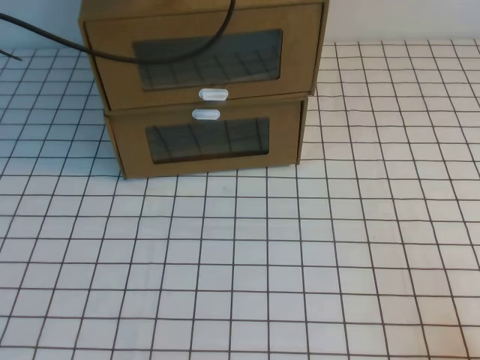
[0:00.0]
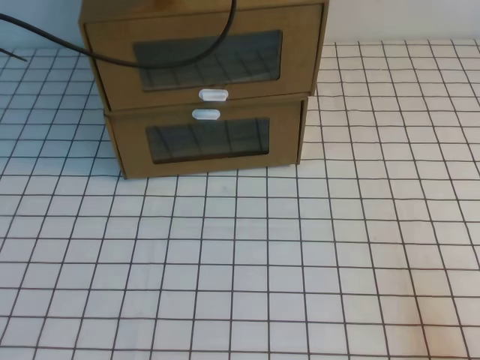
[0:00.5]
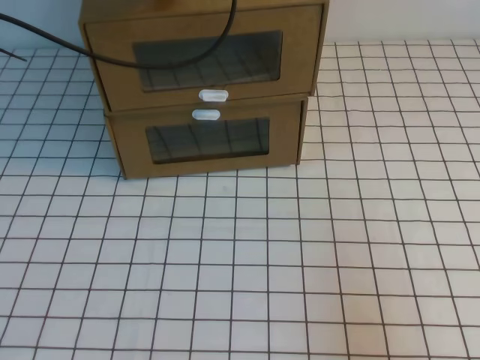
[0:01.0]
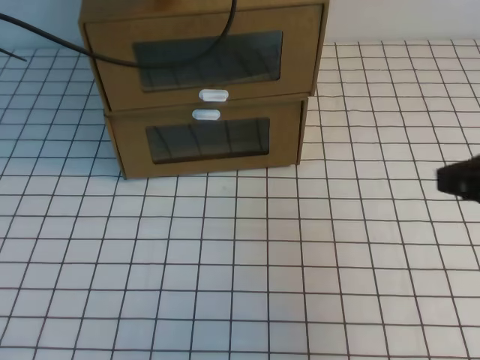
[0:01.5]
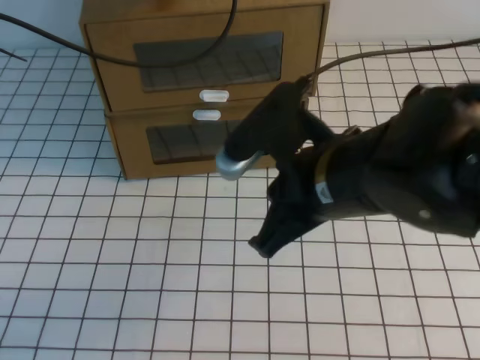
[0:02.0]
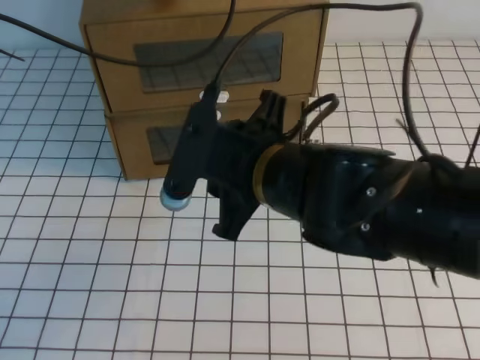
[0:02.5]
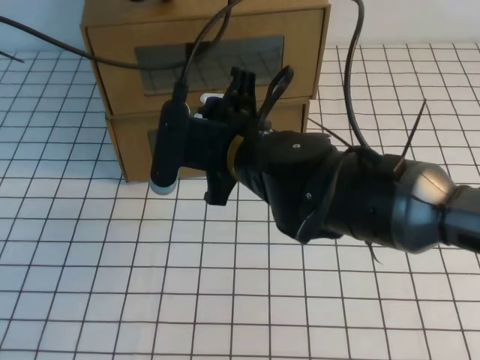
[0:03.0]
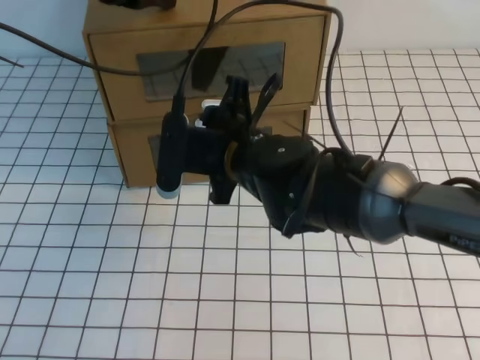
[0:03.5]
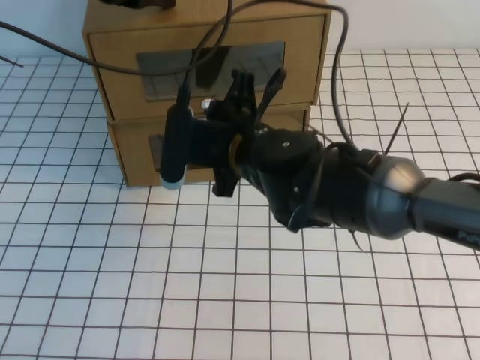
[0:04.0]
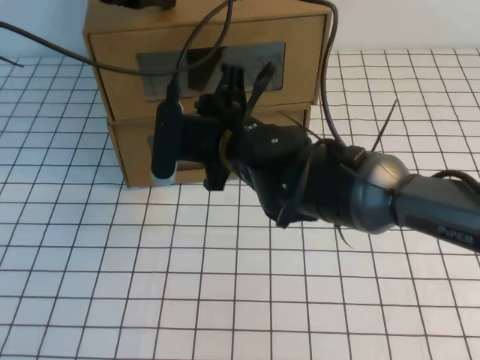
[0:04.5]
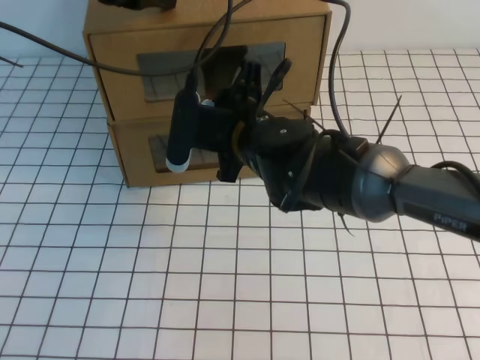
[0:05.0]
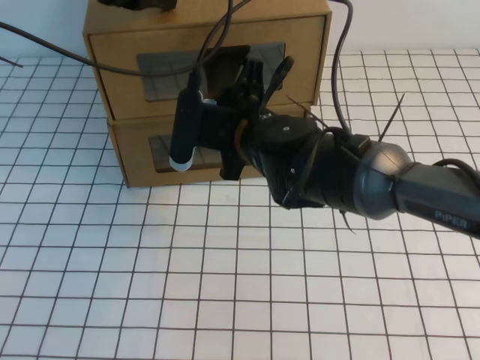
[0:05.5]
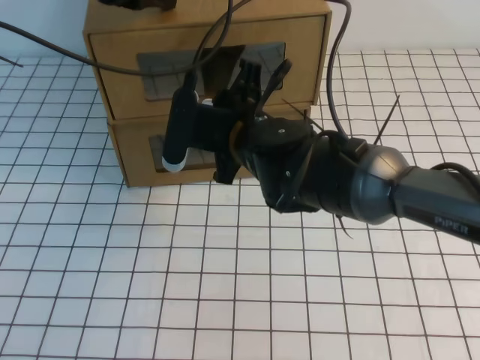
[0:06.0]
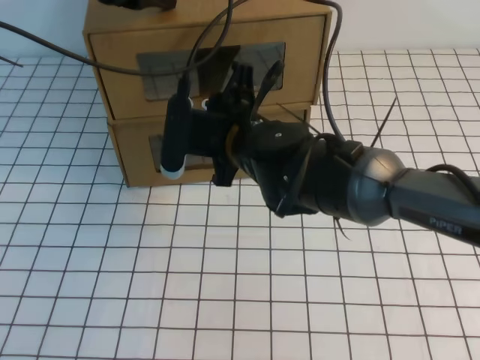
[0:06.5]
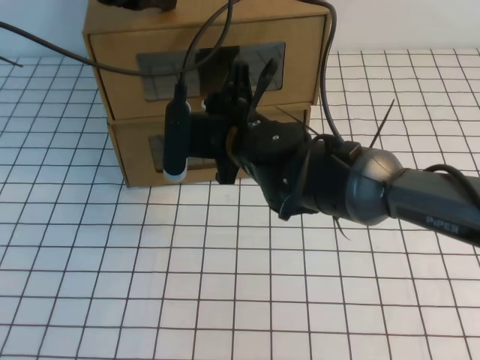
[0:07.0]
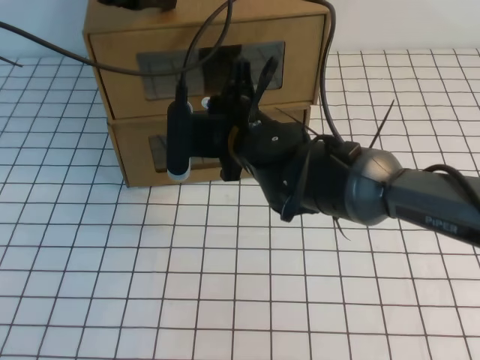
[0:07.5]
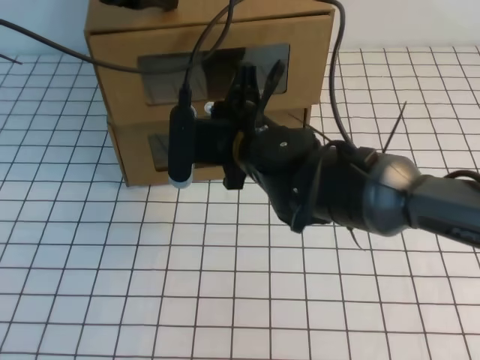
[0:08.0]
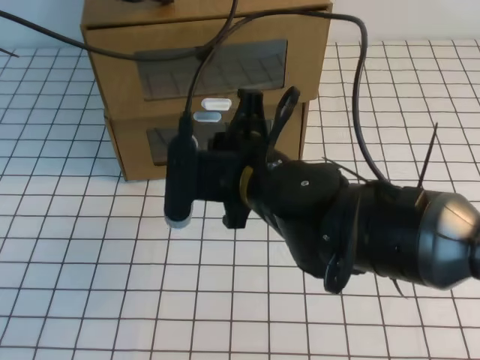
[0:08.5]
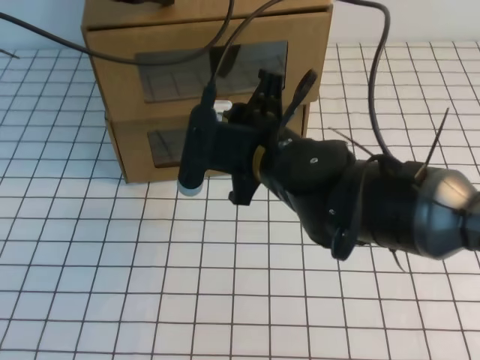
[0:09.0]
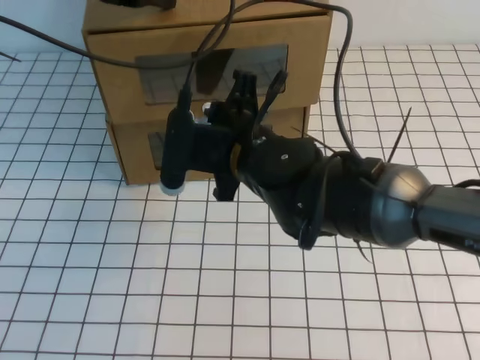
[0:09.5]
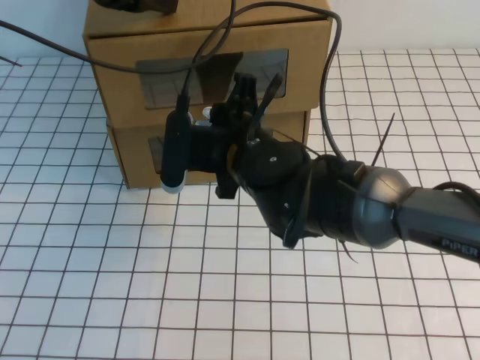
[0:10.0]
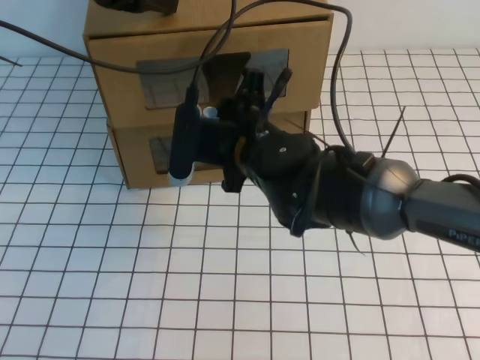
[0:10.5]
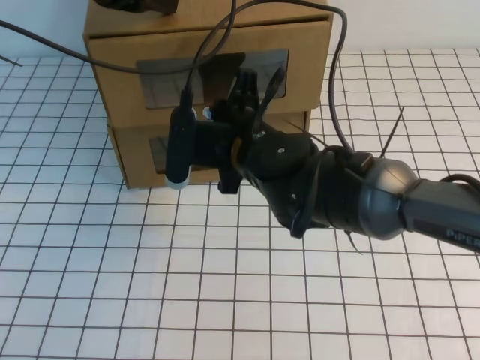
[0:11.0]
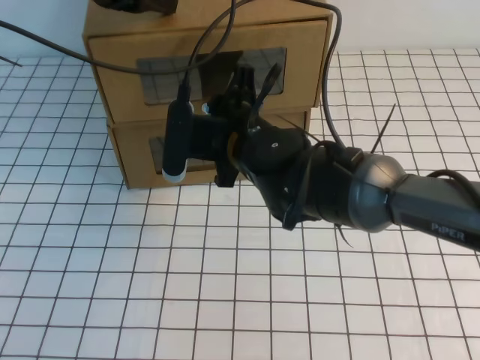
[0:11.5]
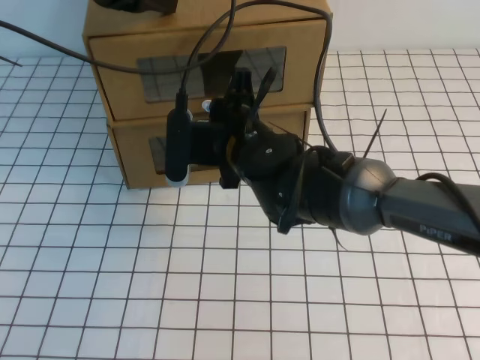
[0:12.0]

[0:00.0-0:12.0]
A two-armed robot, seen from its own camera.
Task of the whole recording: open the shoebox on the white tablecloth.
0:00.0 to 0:02.0: The right gripper moves to the left, forward and upward, approximately 30 cm.
0:02.0 to 0:04.0: The right gripper shifts some 15 cm forward, to the left and downward, and opens.
0:04.0 to 0:06.0: There are only small adjustments of the grippers.
0:06.0 to 0:08.0: The right gripper closes up.
0:08.0 to 0:10.0: The right gripper opens up.
0:10.0 to 0:12.0: The grippers make only small movements.

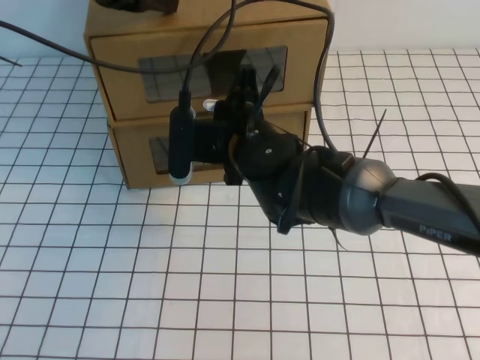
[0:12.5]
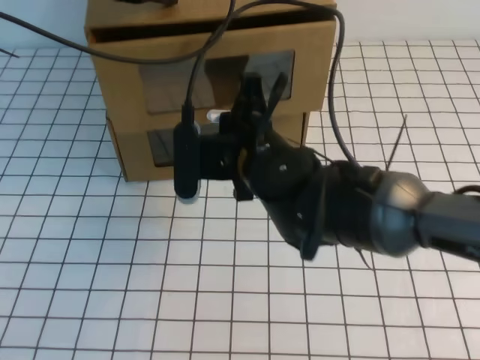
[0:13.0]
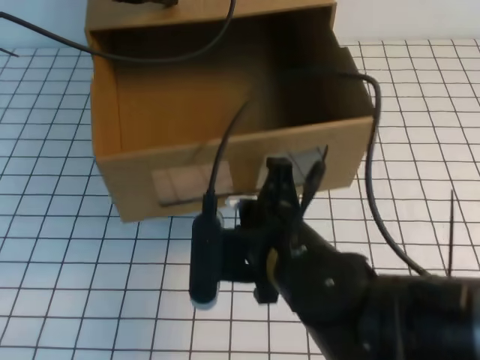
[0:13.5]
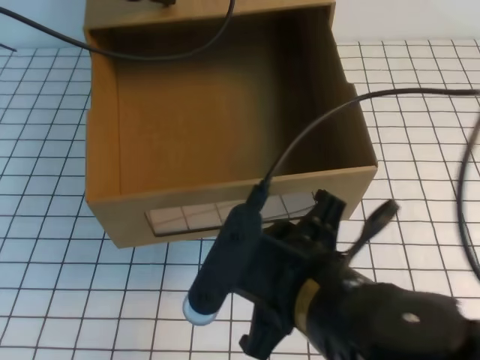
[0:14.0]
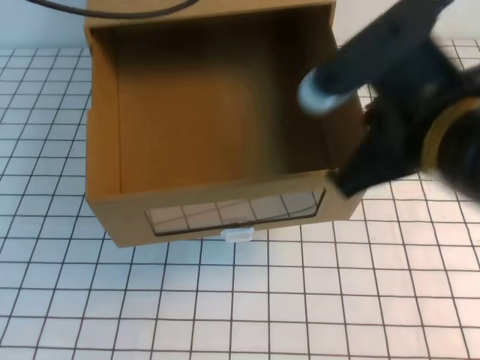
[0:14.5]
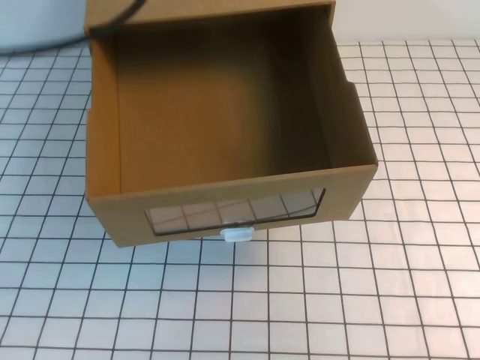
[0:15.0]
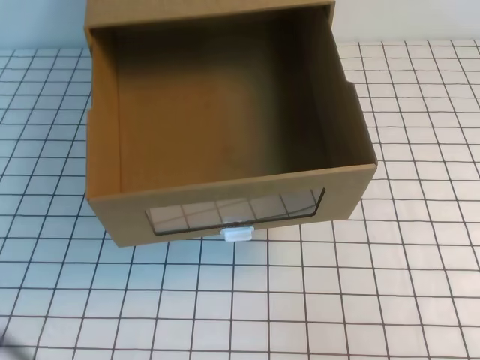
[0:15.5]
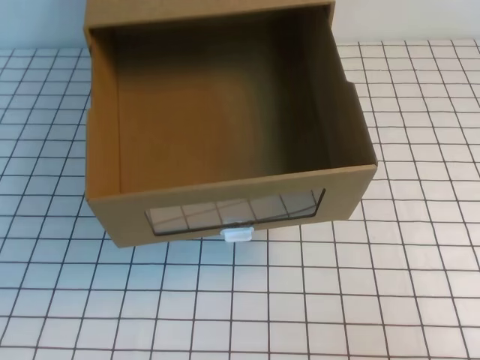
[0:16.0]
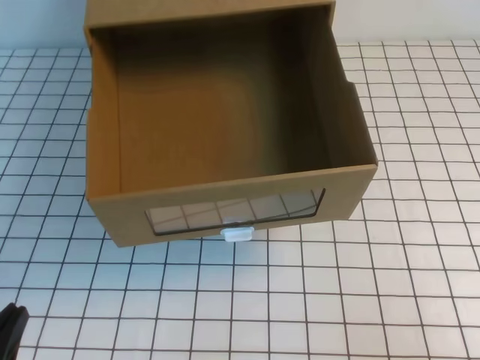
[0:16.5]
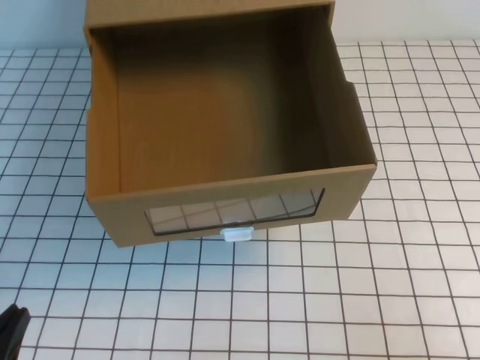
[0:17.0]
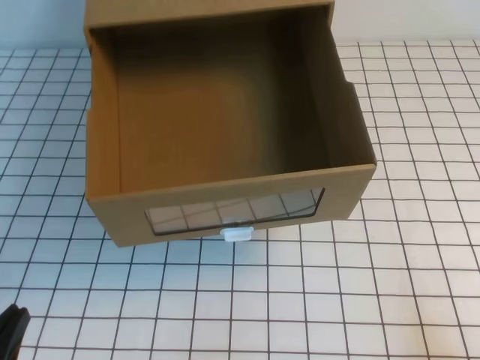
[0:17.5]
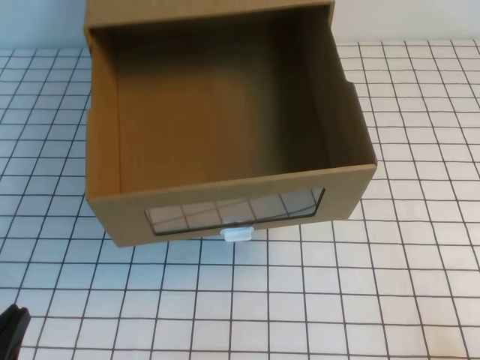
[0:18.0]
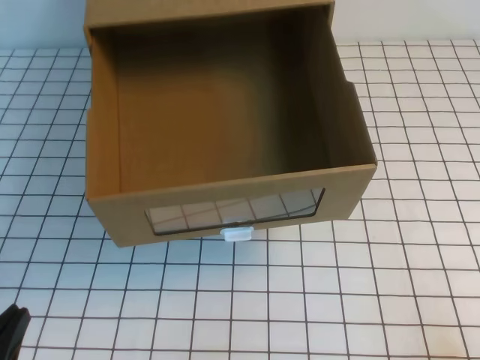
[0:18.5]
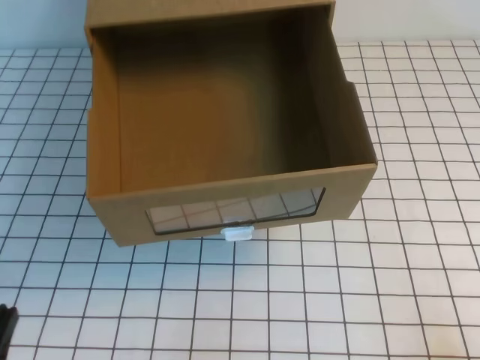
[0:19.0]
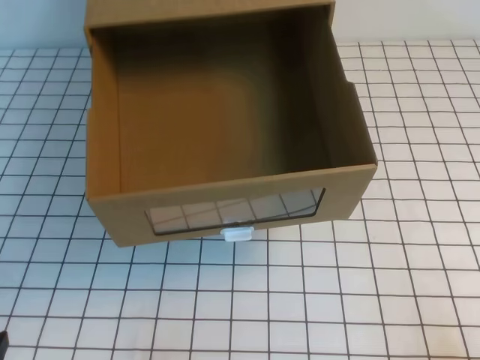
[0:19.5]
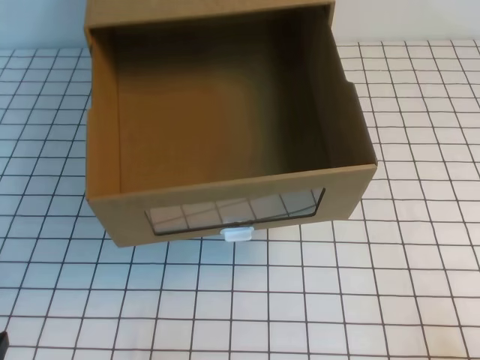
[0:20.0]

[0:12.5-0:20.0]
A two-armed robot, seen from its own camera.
Task of the whole recording: open the shoebox on the white tablecloth.
Step, 0:12.5 to 0:20.0: Open the shoe box.
0:12.5 to 0:14.5: The right gripper travels backward, to the right and upward by approximately 25 cm, and opens and closes again. Meanwhile the left gripper goes roughly 10 cm upward and backward.
0:14.5 to 0:16.5: The left gripper goes roughly 40 cm backward and downward, while the right gripper shifts roughly 25 cm to the right, backward and downward.

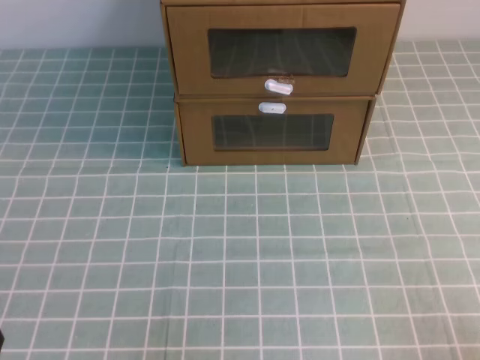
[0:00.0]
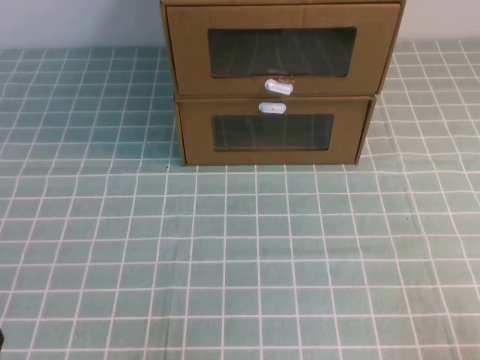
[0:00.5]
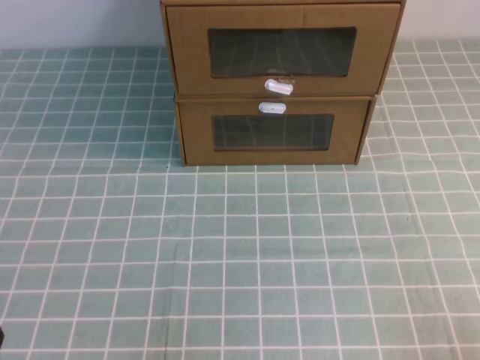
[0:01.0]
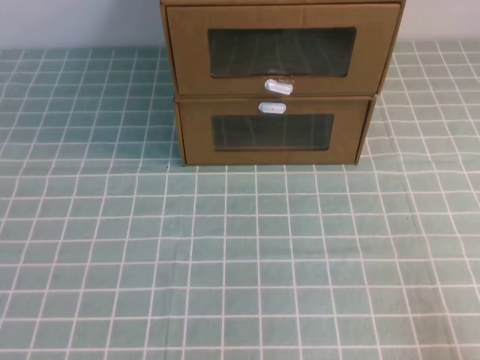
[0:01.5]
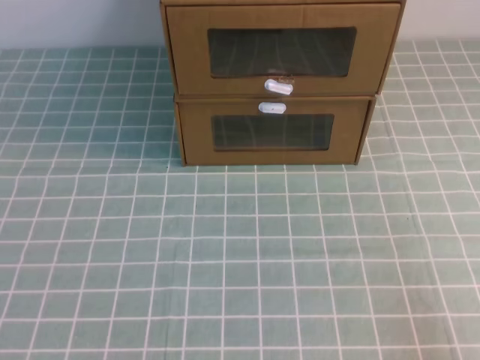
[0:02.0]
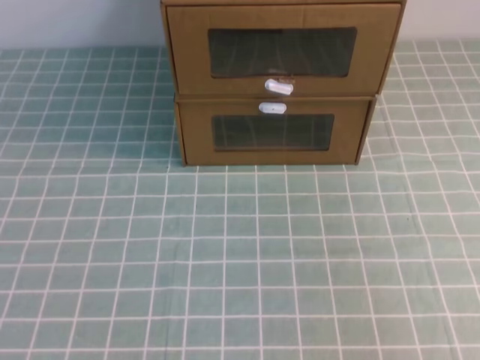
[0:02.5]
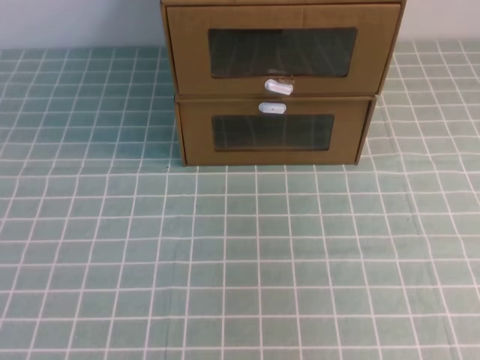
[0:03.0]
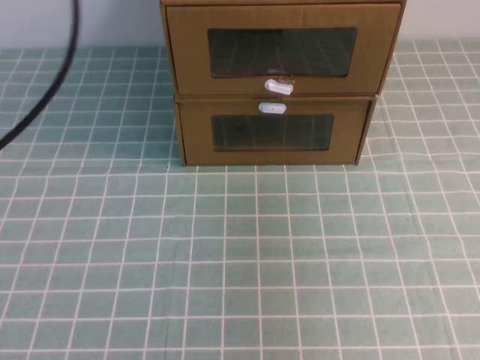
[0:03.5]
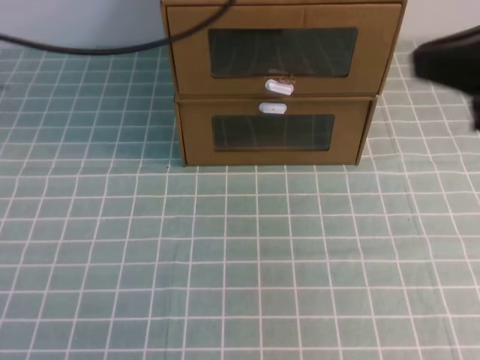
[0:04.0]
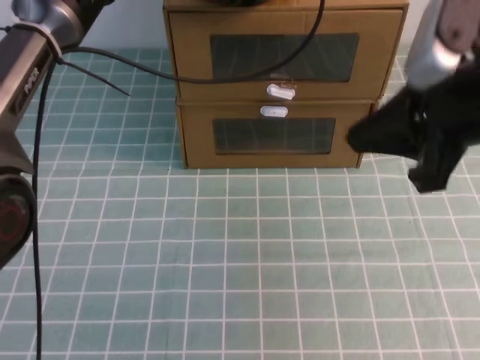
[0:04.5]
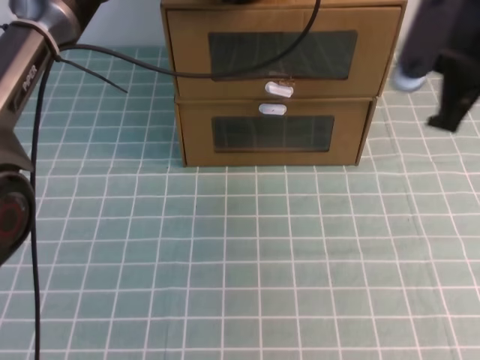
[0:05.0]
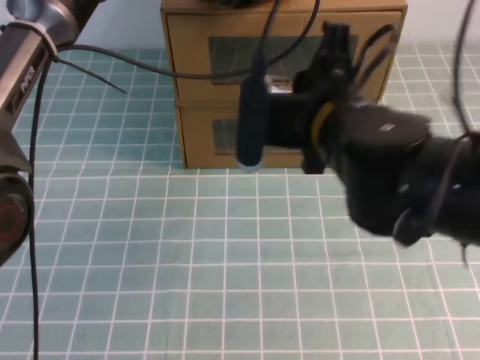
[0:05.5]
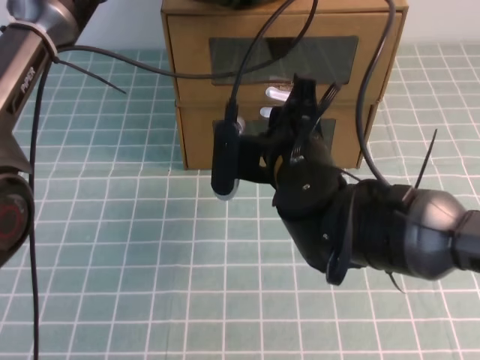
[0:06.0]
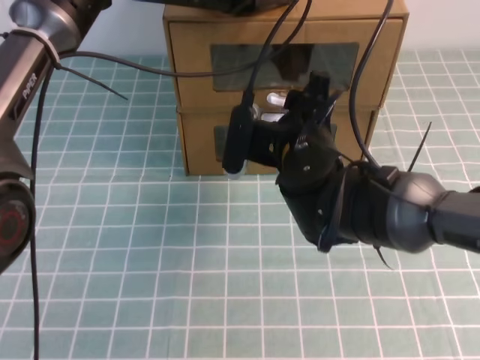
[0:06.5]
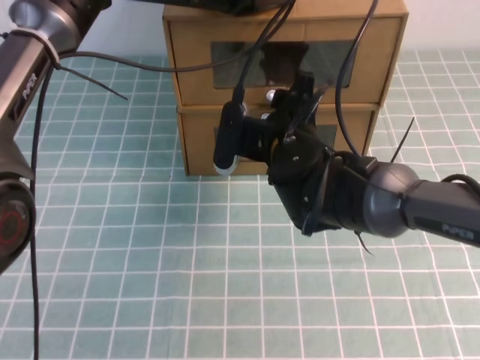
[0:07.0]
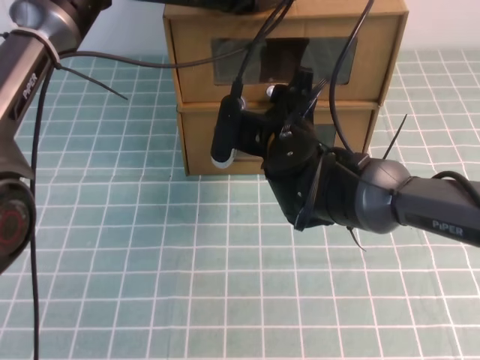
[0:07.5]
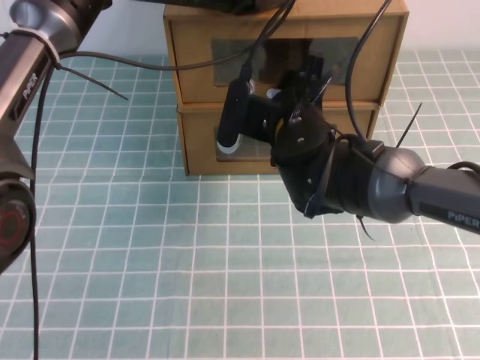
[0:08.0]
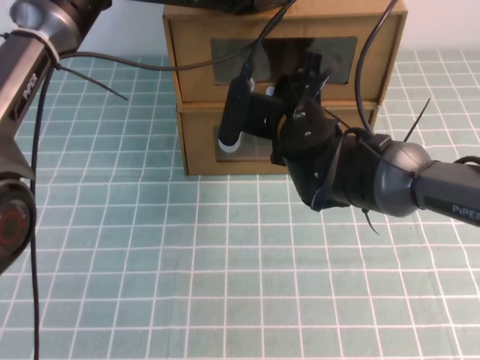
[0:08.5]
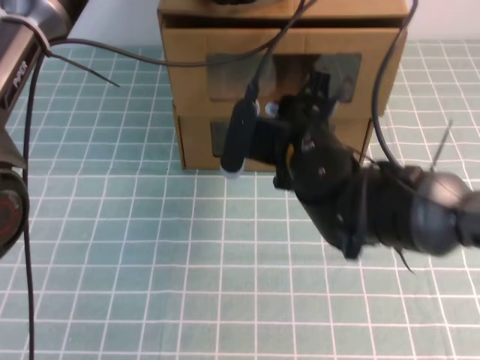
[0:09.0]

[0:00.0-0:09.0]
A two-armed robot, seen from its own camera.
Task of the whole recording: open the shoebox on the cyan tablecloth.
0:02.0 to 0:04.5: The left gripper heads forward and to the right, covering some 50 cm, while the right gripper is displaced forward, to the left and upward by approximately 30 cm.
0:04.5 to 0:07.0: The right gripper is displaced to the left, downward and forward by approximately 25 cm, and opens.
0:07.0 to 0:09.0: The right gripper closes.